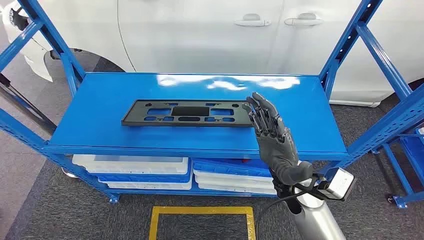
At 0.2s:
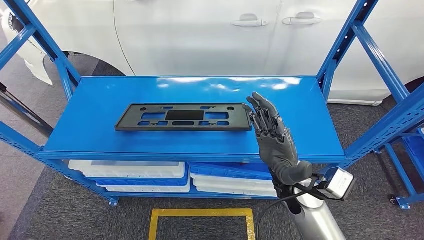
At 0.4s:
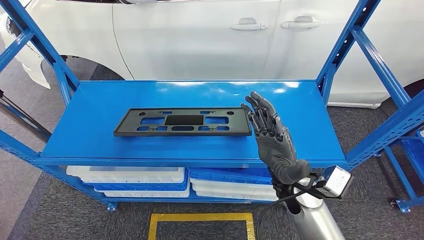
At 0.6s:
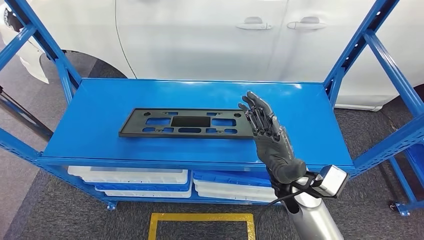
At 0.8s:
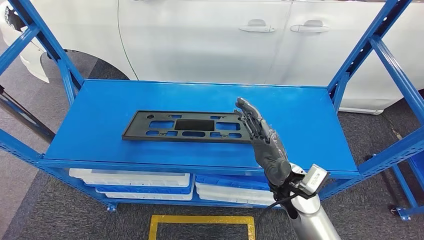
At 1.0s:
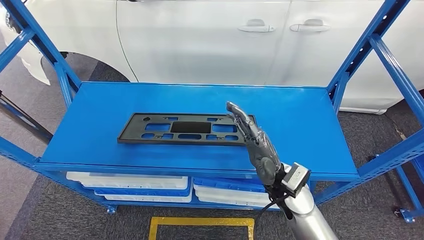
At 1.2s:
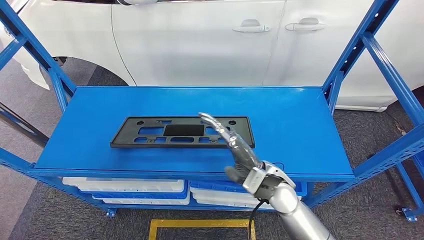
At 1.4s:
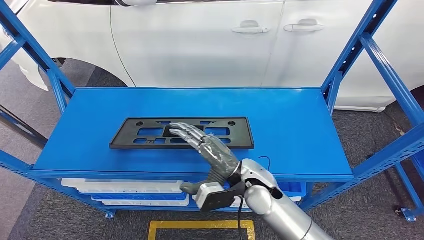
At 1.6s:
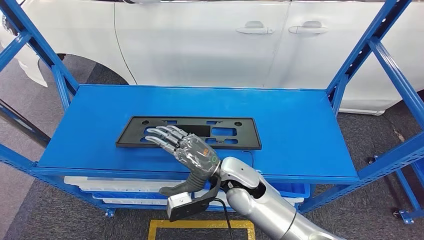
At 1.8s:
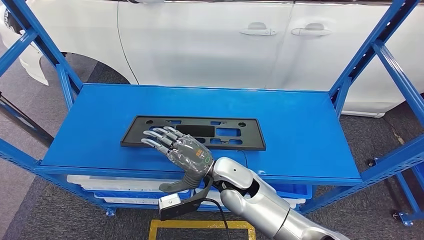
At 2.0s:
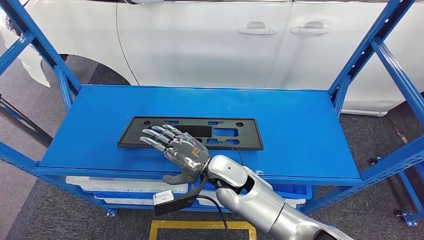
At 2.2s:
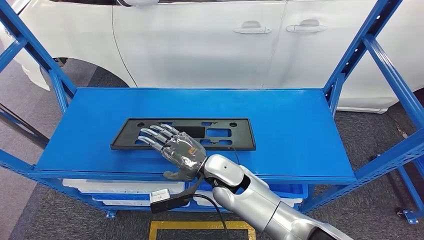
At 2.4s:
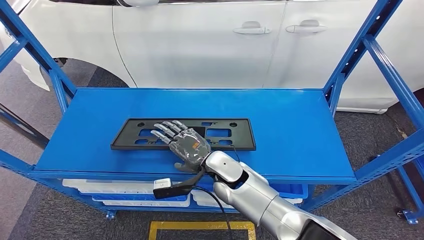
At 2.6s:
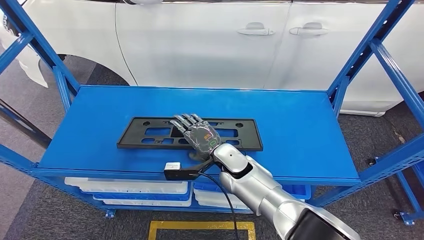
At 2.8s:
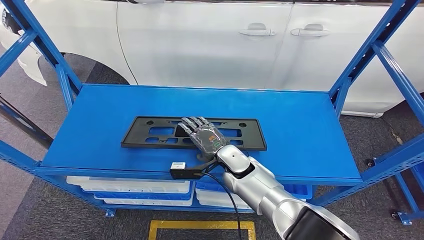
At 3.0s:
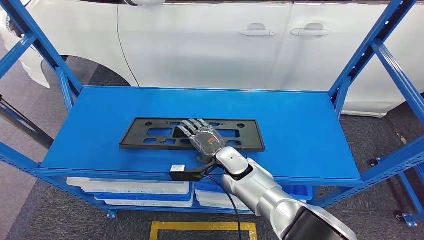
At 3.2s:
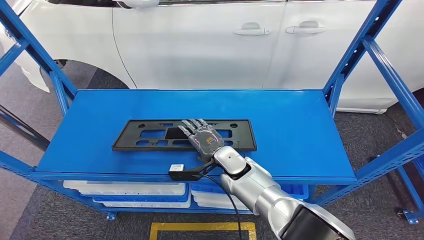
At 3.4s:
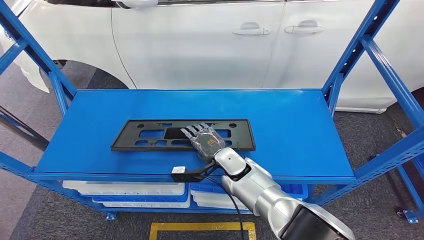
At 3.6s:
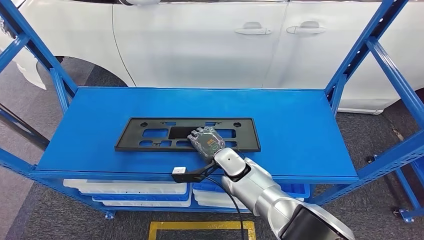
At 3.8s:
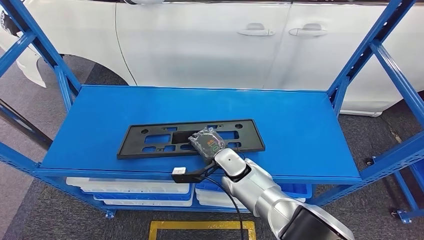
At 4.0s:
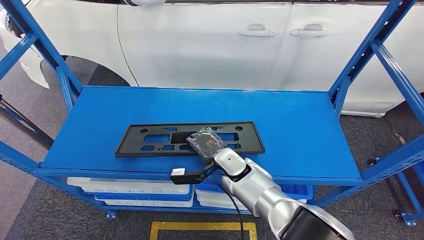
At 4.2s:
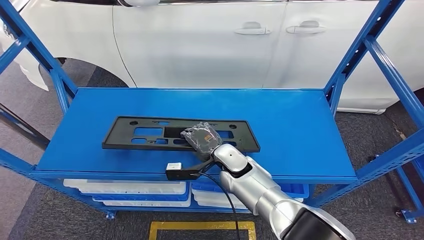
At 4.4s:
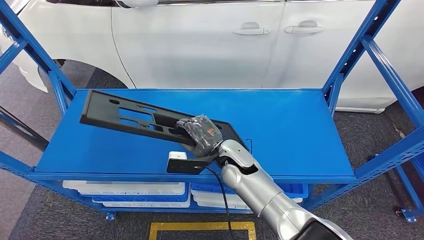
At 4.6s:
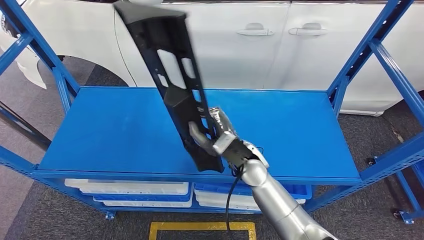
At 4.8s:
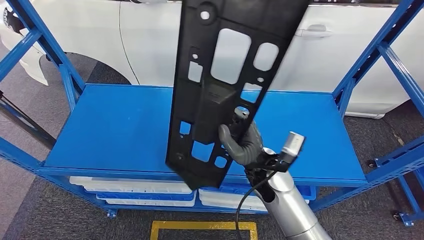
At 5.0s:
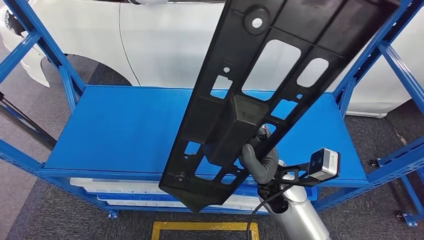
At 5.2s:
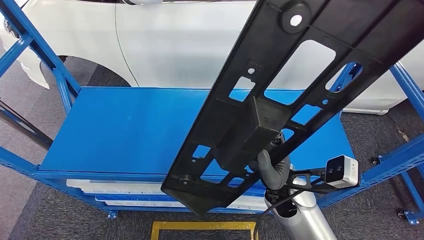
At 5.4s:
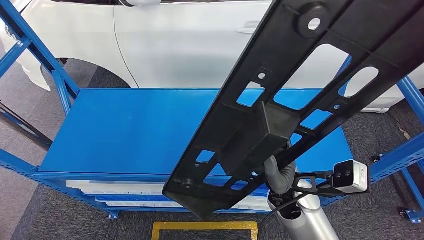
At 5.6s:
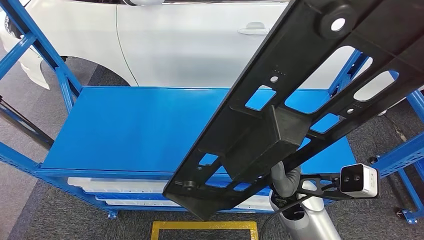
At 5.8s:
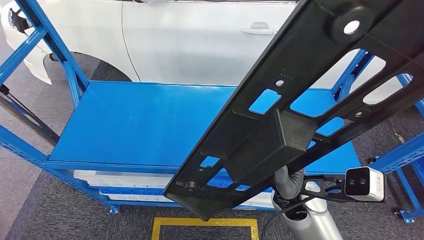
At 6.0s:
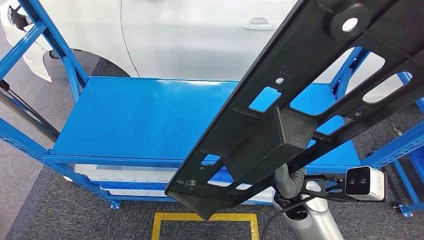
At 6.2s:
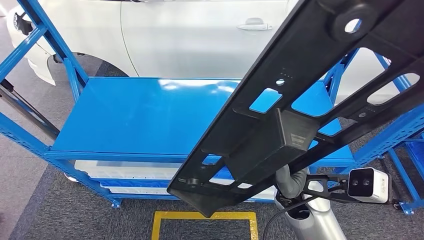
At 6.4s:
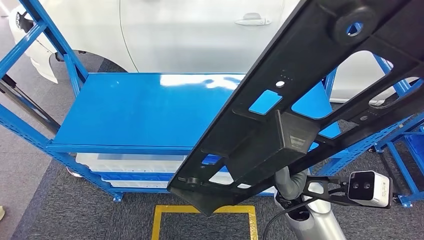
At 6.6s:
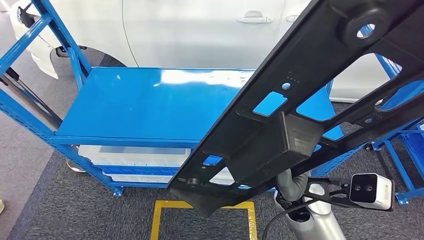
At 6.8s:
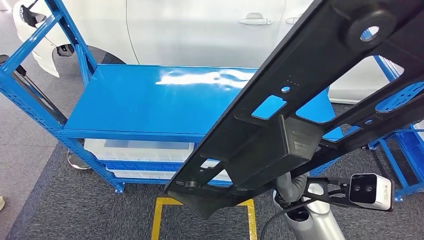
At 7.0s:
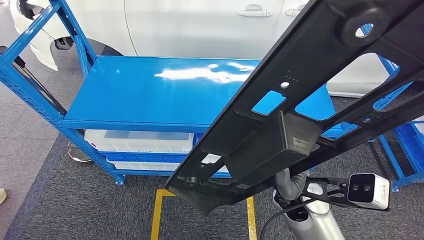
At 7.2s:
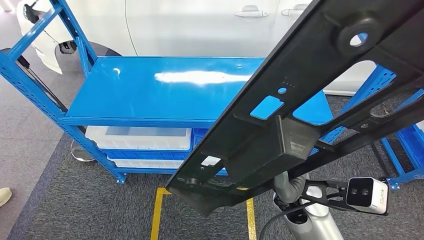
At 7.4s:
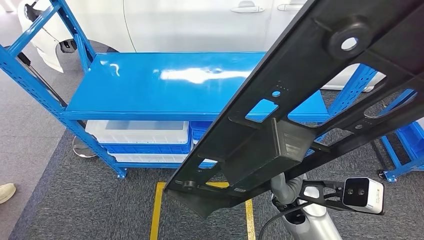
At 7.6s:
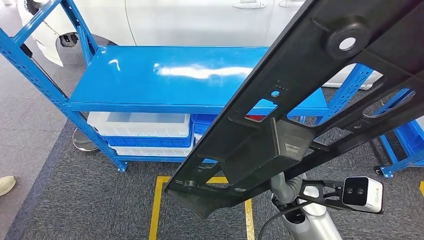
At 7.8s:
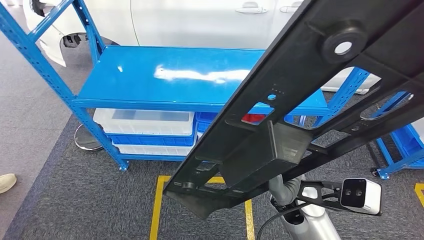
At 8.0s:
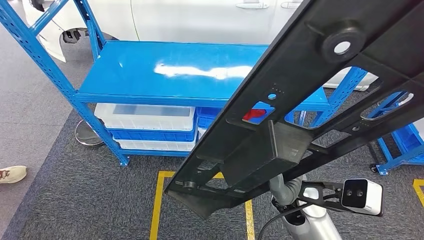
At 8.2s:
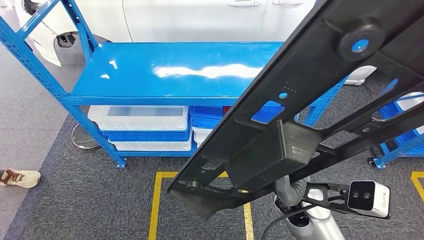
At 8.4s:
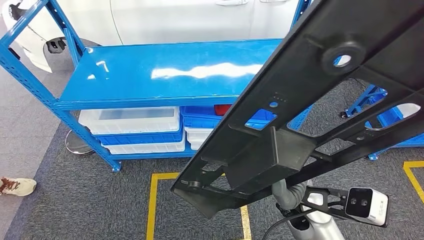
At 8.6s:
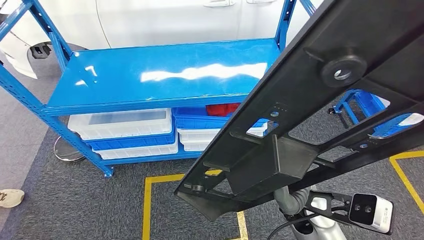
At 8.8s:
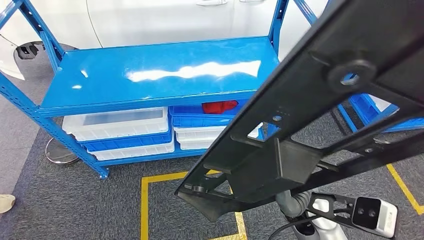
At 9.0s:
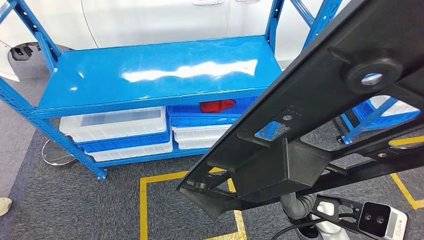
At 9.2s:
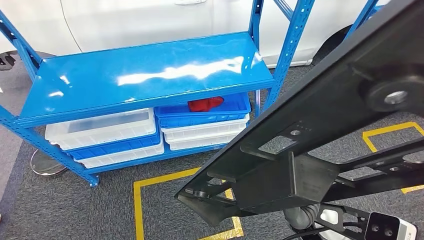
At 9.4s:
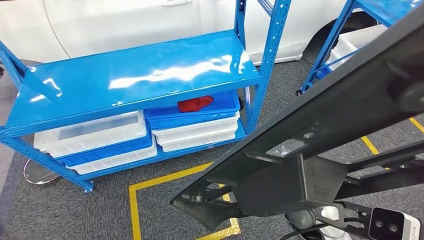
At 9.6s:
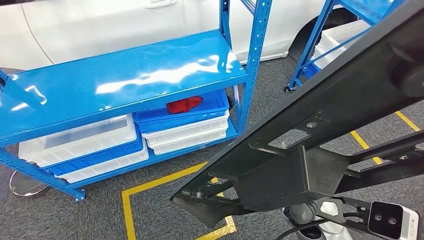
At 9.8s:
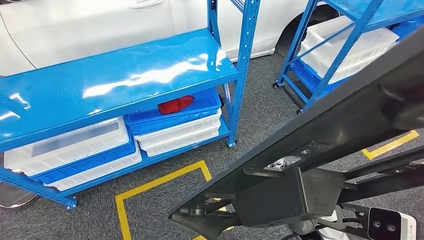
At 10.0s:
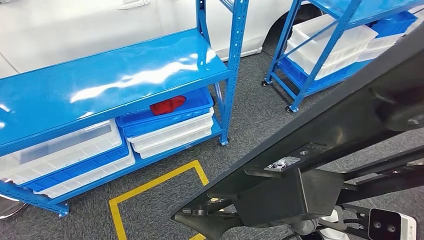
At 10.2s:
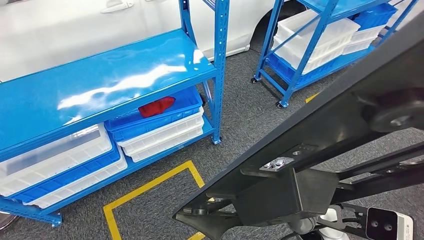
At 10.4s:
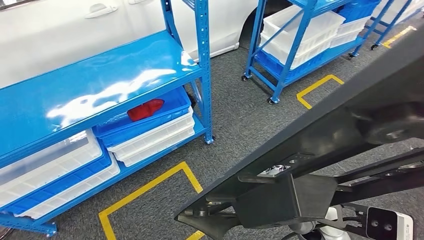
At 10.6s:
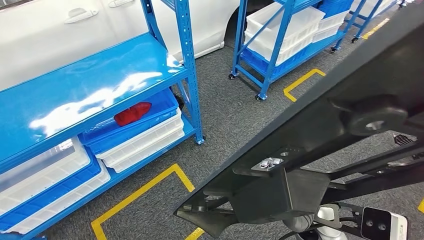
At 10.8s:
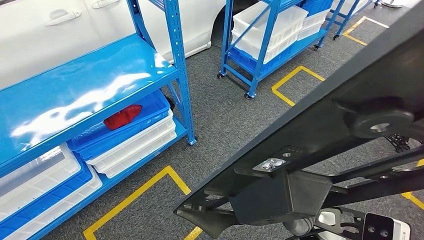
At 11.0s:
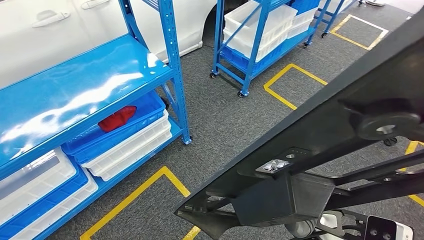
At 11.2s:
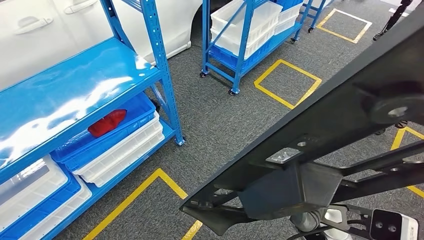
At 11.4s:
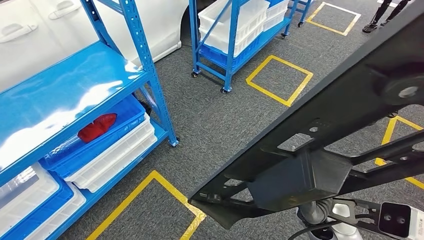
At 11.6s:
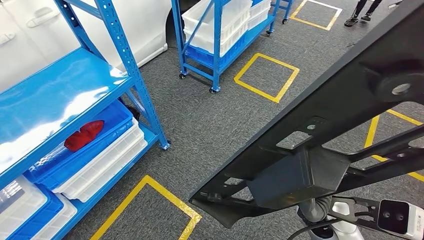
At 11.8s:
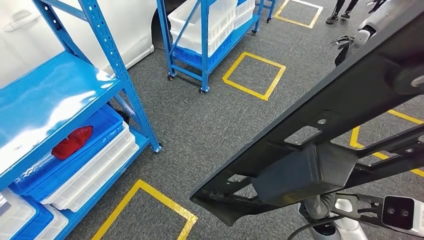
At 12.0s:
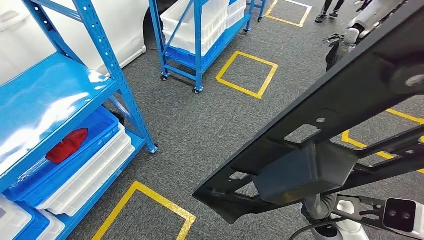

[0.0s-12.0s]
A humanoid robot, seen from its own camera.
Step, 0.0s to 4.2s: Take small components from the rack.

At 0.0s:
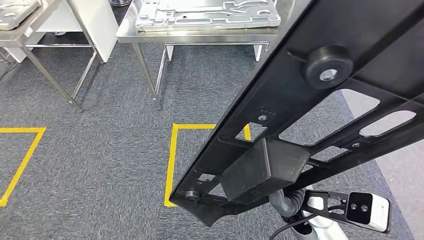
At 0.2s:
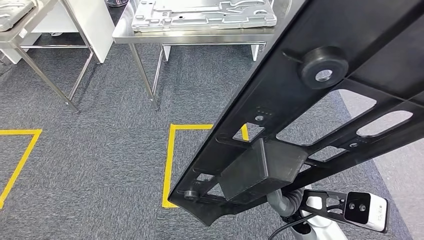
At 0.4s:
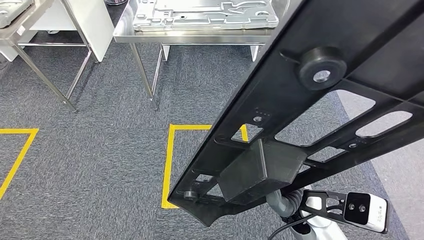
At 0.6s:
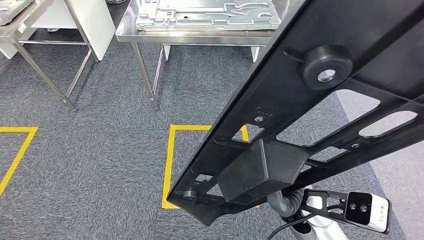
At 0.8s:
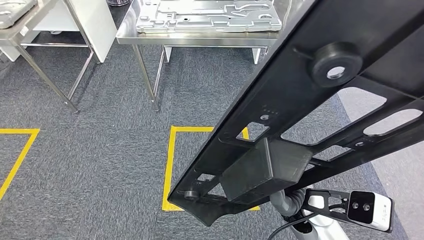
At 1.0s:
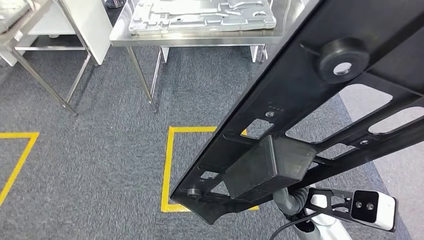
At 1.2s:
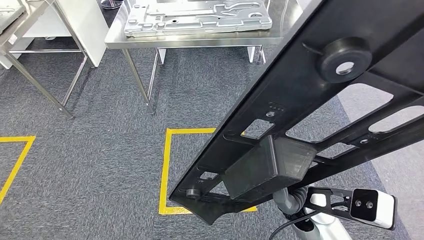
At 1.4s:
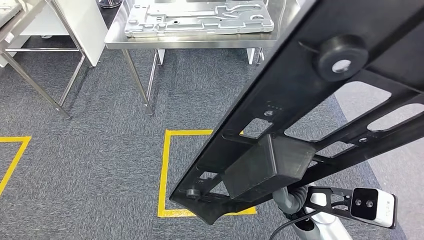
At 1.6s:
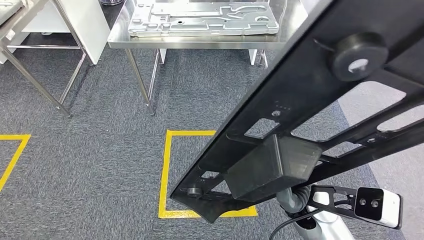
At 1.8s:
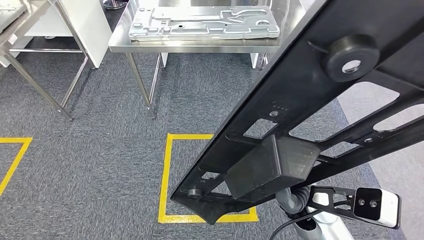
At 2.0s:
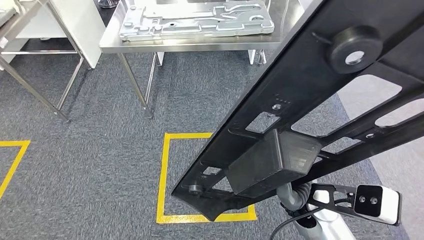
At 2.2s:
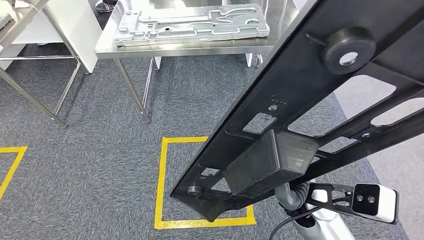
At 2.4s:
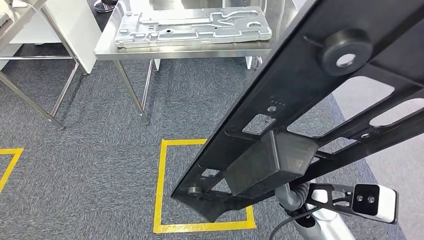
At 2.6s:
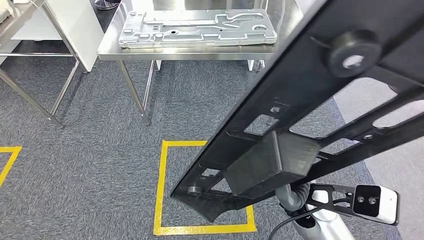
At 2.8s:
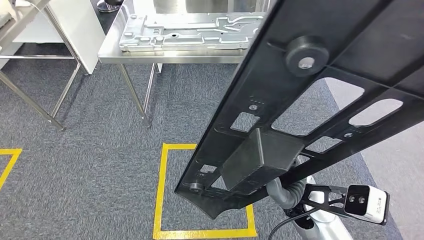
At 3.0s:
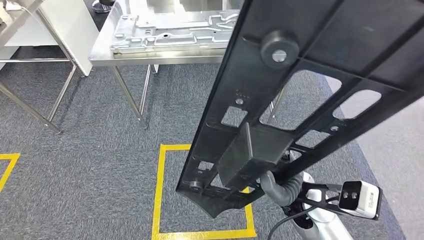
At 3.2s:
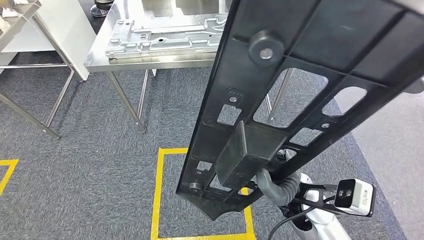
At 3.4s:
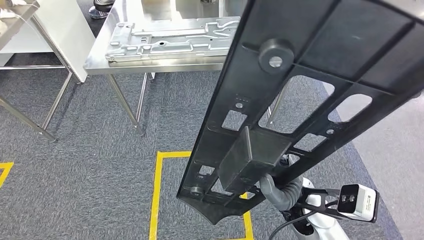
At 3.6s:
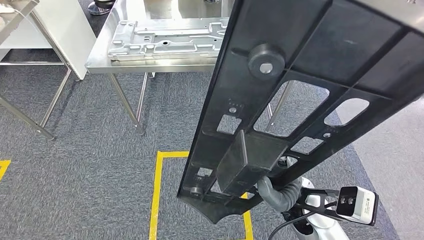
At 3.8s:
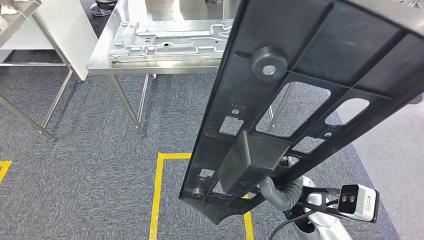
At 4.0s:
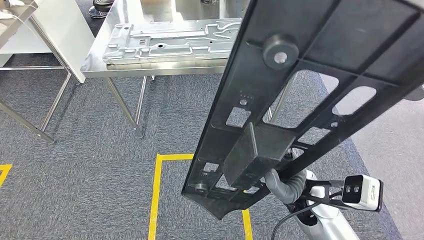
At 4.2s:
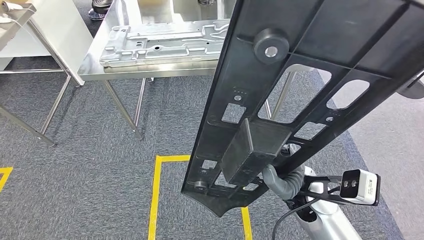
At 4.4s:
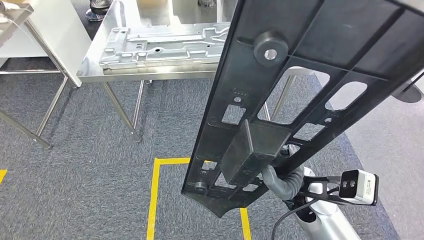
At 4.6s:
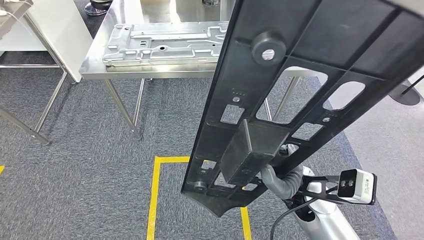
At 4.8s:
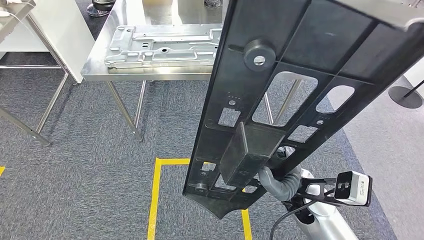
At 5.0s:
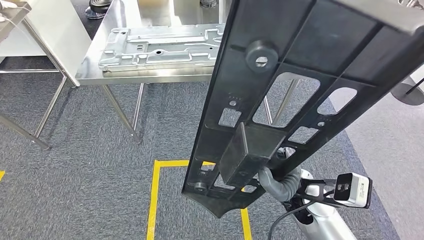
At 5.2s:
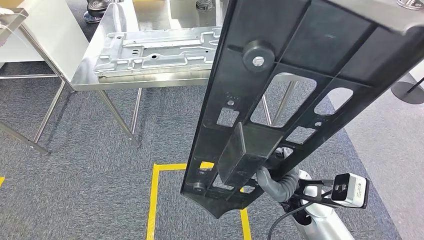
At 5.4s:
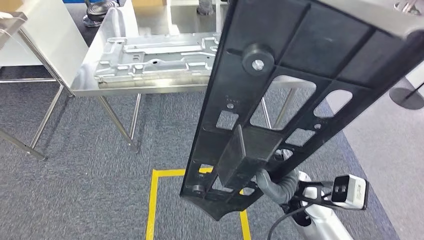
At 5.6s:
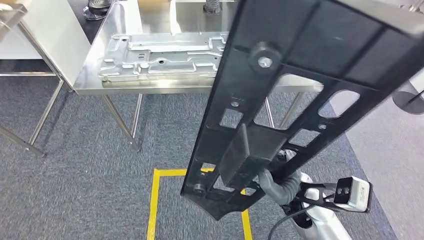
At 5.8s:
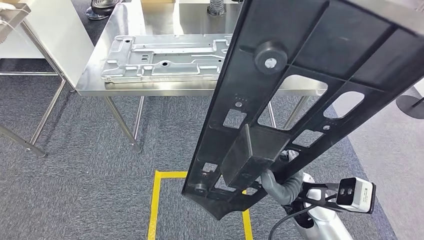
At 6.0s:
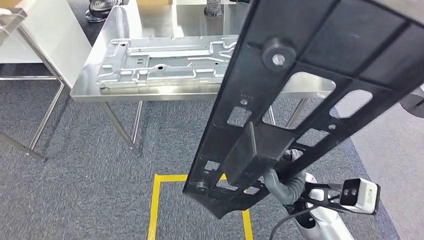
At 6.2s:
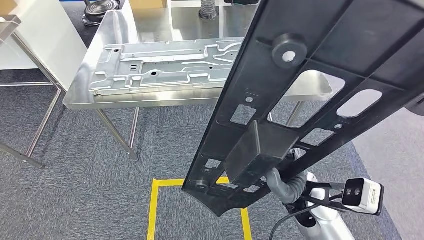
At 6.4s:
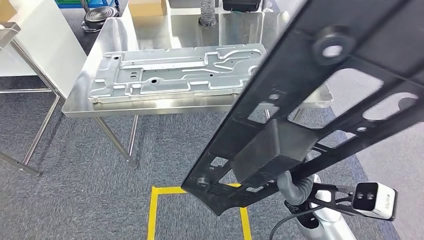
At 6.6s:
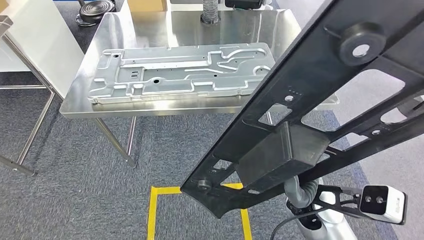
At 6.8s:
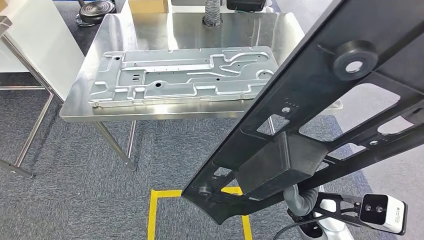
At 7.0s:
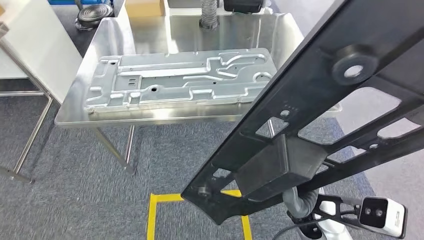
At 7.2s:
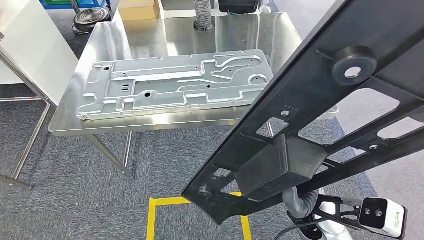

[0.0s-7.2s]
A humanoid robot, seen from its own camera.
Step, 0.0s to 6.8s: Move the small parts to the workbench.
